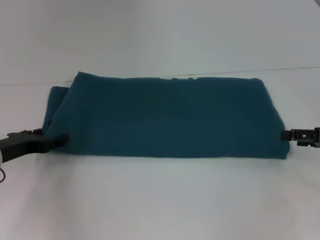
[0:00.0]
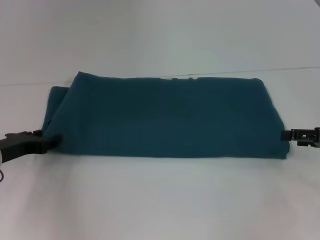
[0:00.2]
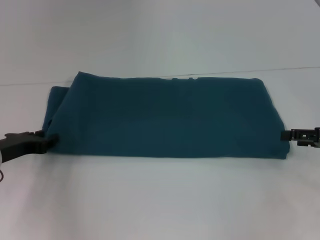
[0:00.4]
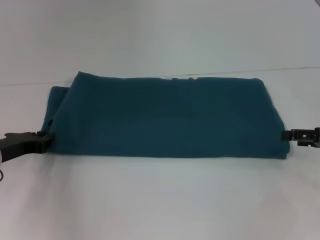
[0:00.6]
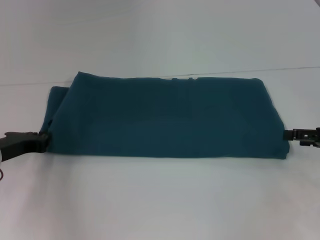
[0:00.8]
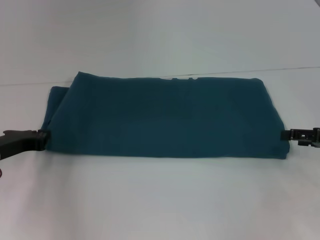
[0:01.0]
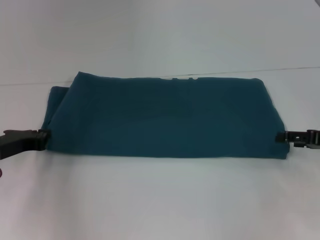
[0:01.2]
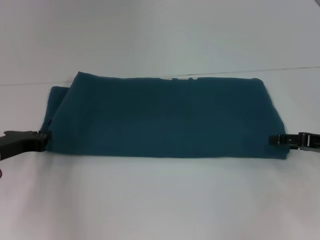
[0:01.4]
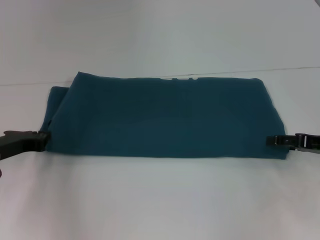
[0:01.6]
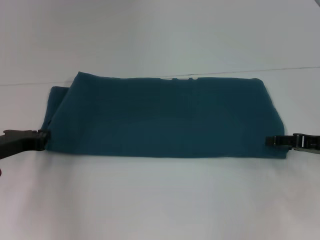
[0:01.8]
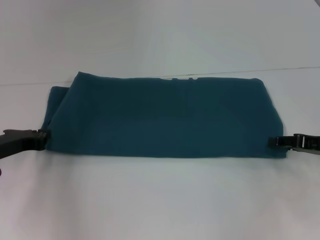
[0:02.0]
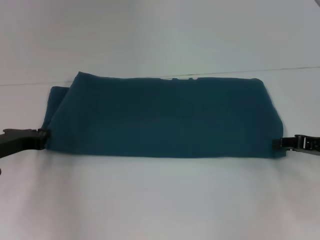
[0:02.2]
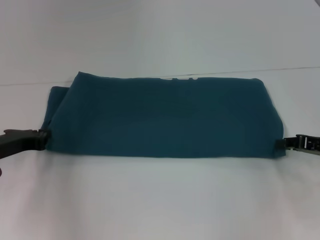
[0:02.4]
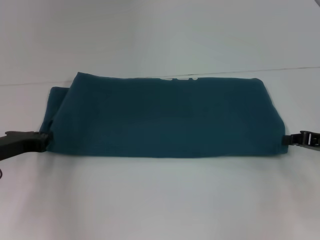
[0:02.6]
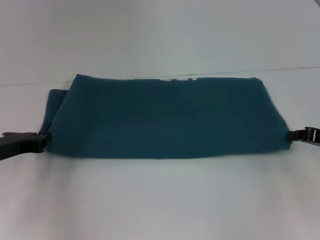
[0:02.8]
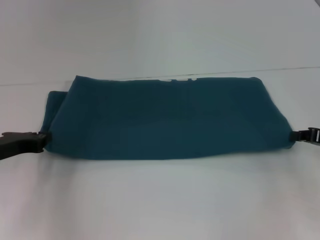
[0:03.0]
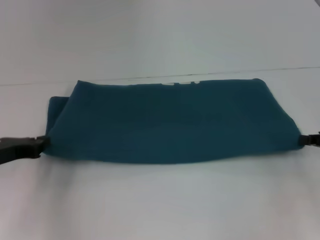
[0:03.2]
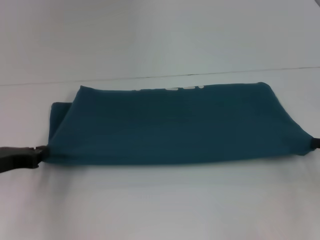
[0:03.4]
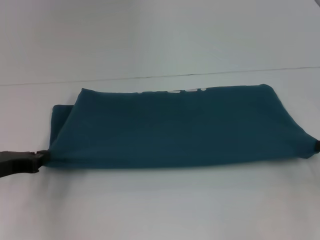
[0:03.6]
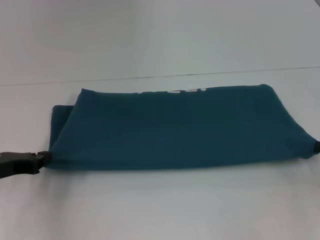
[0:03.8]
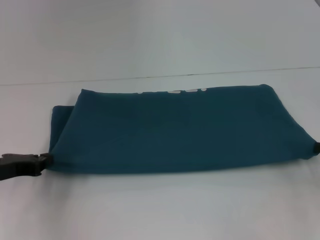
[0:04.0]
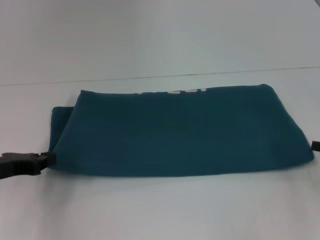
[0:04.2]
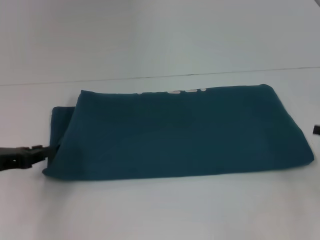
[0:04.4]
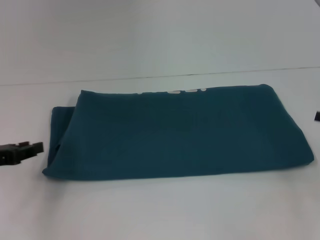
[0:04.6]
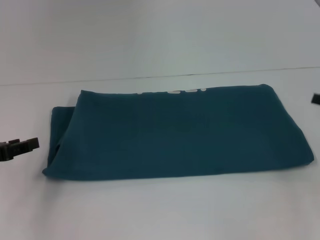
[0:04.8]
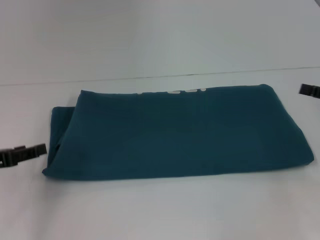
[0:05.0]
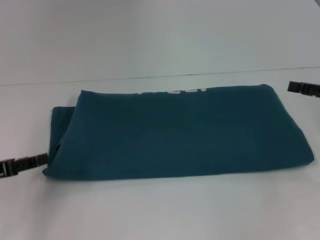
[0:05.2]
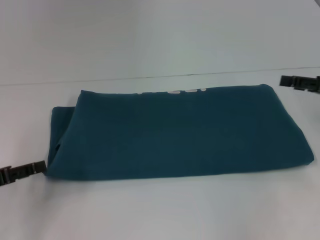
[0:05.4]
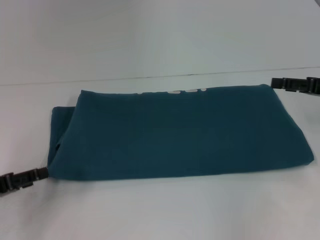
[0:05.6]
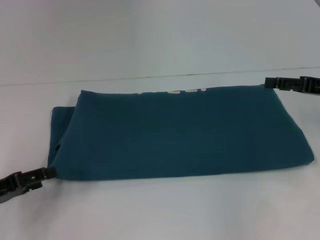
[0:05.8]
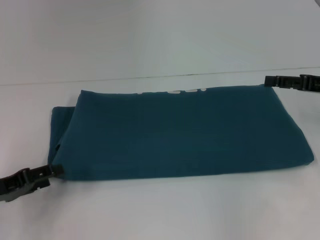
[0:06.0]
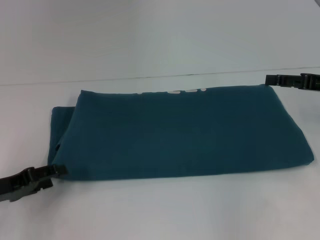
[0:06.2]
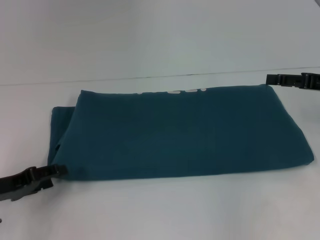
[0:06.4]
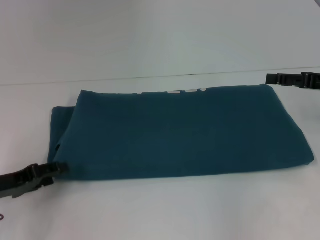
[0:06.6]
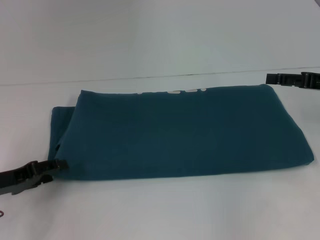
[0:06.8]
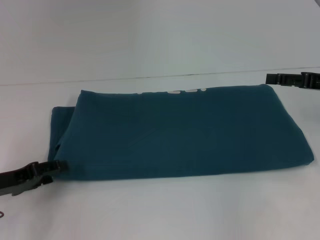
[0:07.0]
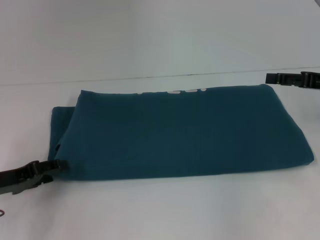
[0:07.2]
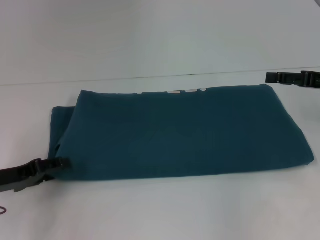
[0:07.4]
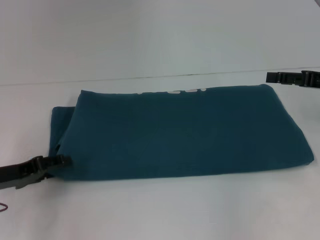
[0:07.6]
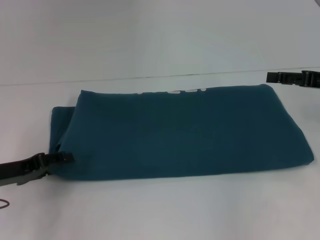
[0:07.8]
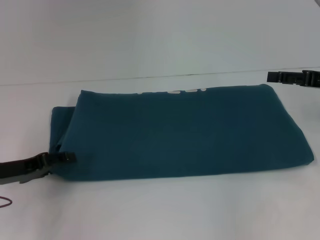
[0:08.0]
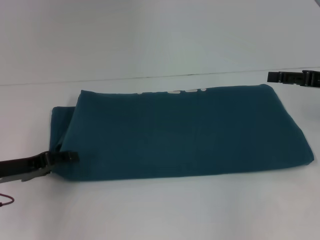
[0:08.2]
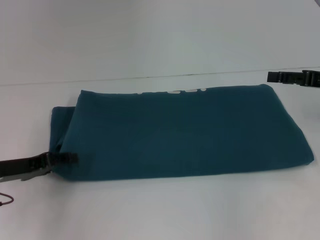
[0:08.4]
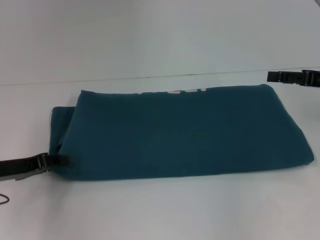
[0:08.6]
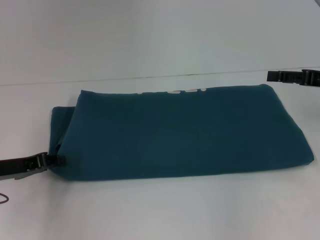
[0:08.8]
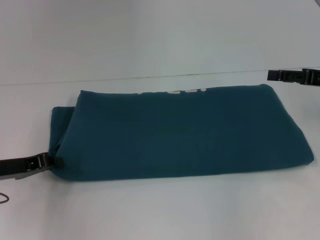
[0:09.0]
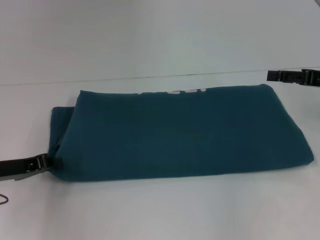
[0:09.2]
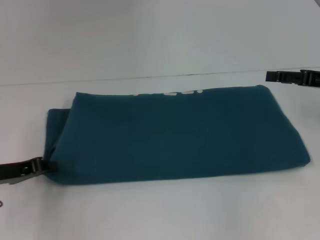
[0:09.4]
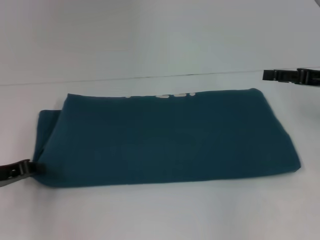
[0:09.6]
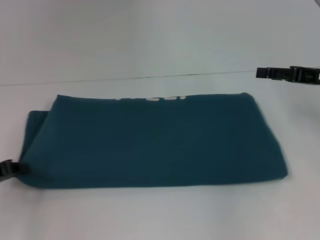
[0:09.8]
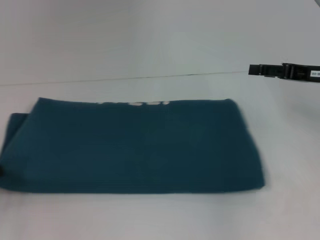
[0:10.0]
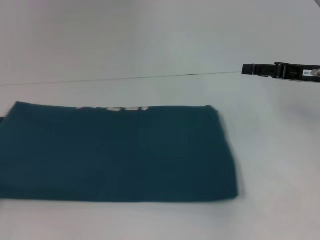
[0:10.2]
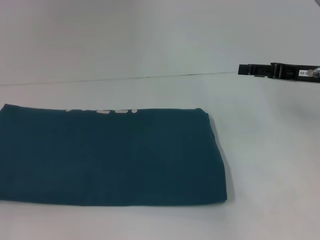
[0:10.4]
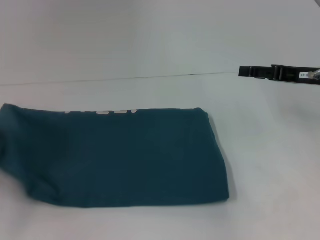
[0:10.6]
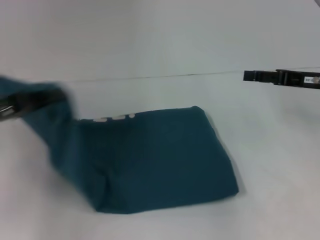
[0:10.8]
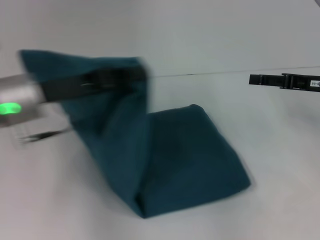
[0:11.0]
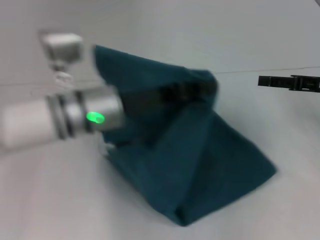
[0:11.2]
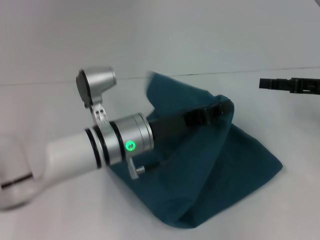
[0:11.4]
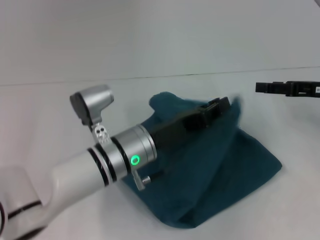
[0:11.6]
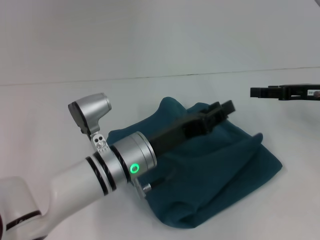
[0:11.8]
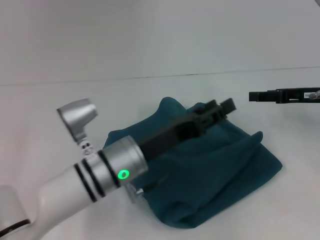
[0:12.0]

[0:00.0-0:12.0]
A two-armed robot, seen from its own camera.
Step, 0:00.0 to 0:11.6: Fold the clothes to the left.
0:00.0 to 0:01.6: The left gripper closes up.
0:01.6 to 0:03.0: The right gripper closes up.
0:03.0 to 0:04.4: The grippers make only small movements.
0:04.4 to 0:06.0: The right gripper moves forward, upward and to the left, some 10 cm, and opens; the left gripper opens.
0:06.0 to 0:07.6: The grippers move only a little.
0:07.6 to 0:09.0: The left gripper closes.
0:09.0 to 0:10.4: The left gripper heads to the left and backward, covering about 15 cm.
0:10.4 to 0:12.0: The left gripper heads to the right, covering about 35 cm, and opens.

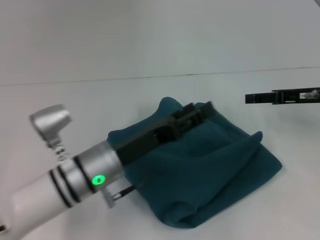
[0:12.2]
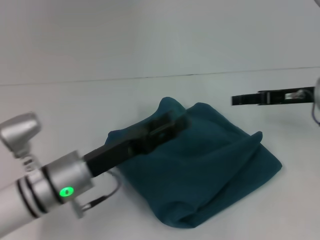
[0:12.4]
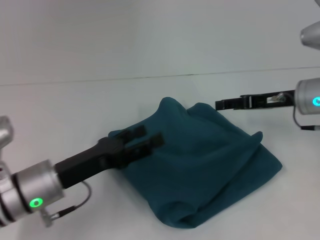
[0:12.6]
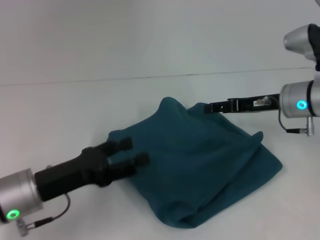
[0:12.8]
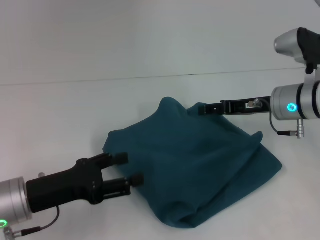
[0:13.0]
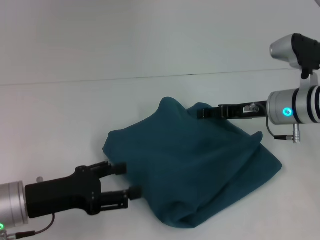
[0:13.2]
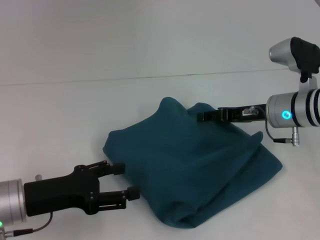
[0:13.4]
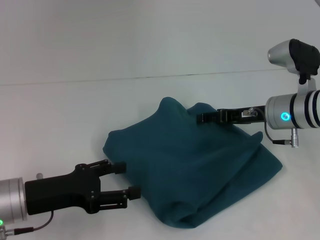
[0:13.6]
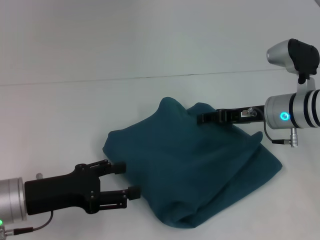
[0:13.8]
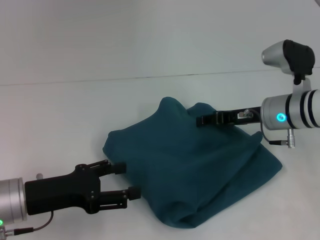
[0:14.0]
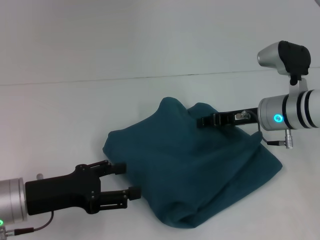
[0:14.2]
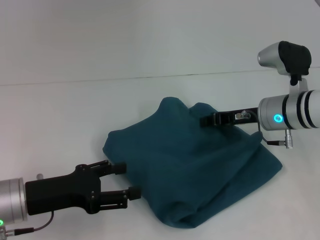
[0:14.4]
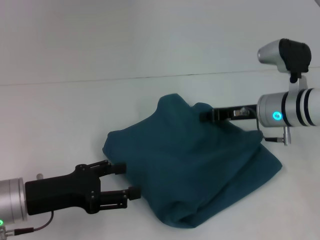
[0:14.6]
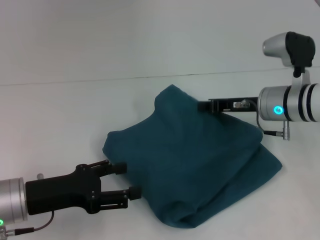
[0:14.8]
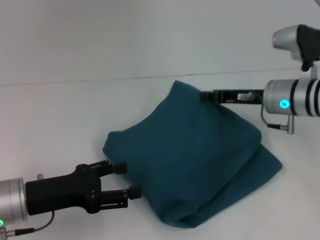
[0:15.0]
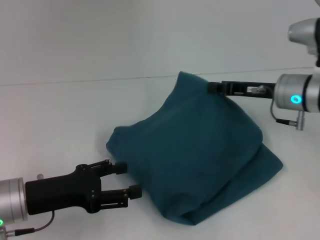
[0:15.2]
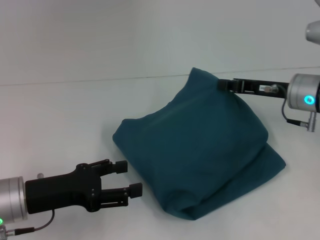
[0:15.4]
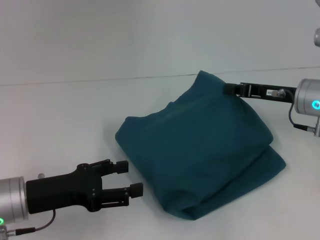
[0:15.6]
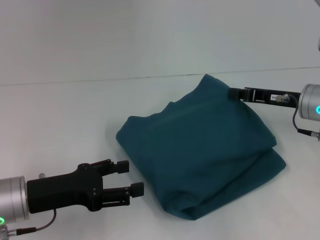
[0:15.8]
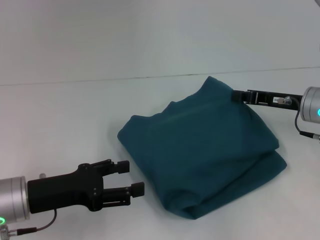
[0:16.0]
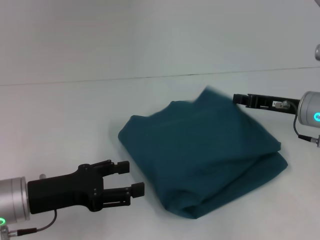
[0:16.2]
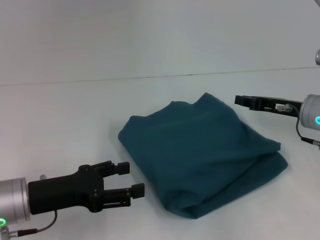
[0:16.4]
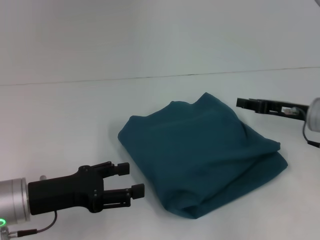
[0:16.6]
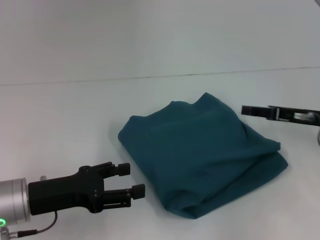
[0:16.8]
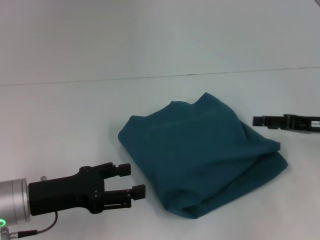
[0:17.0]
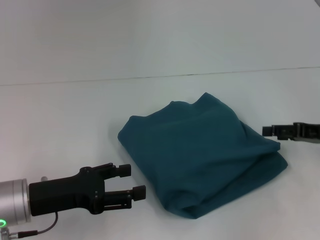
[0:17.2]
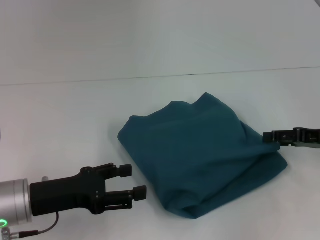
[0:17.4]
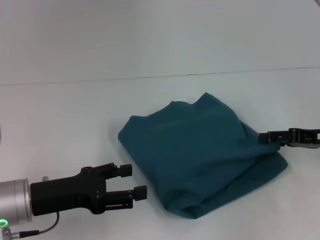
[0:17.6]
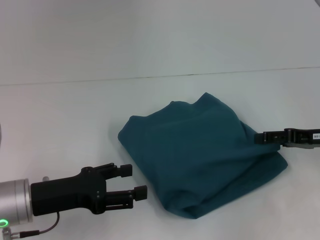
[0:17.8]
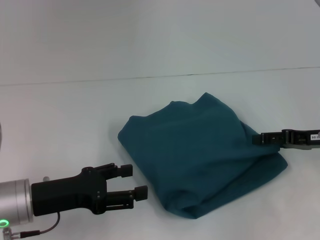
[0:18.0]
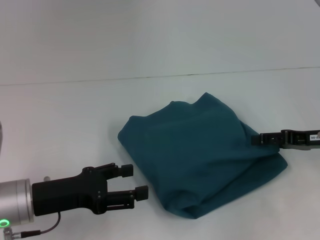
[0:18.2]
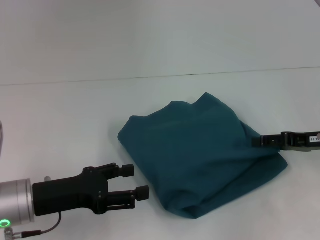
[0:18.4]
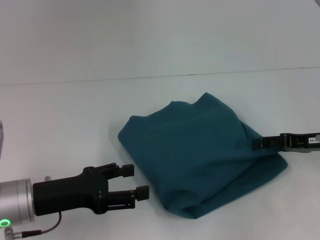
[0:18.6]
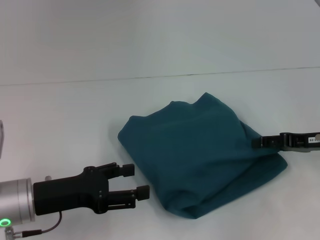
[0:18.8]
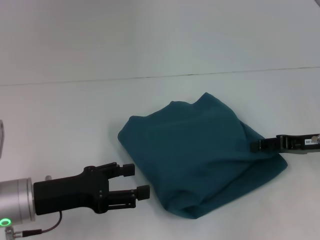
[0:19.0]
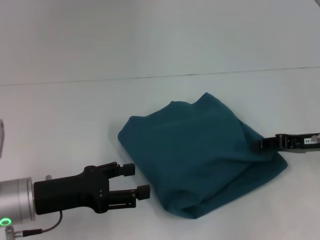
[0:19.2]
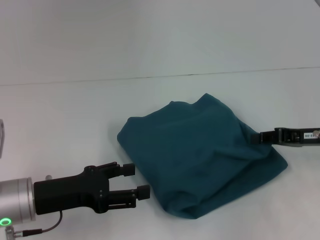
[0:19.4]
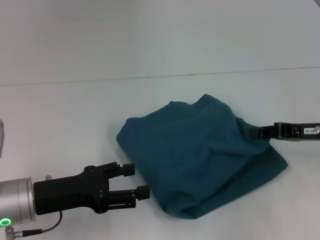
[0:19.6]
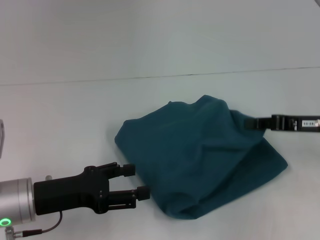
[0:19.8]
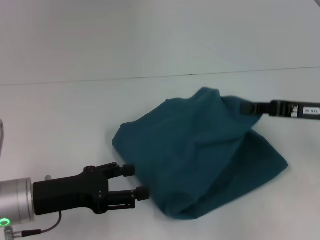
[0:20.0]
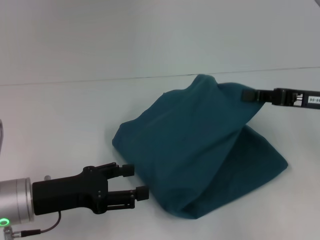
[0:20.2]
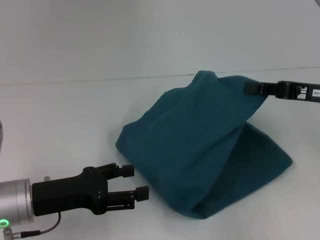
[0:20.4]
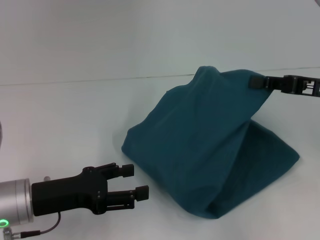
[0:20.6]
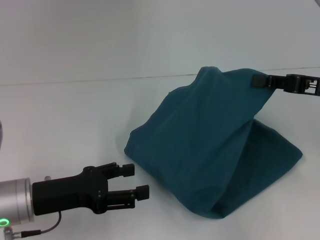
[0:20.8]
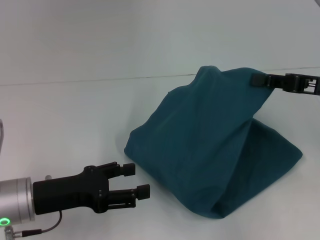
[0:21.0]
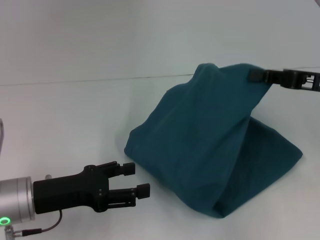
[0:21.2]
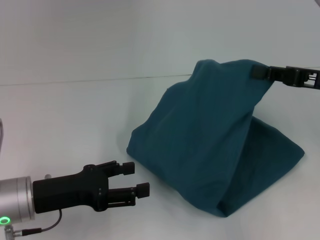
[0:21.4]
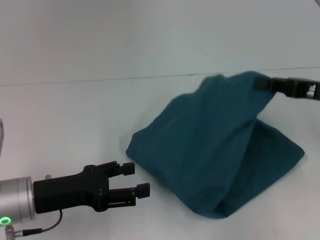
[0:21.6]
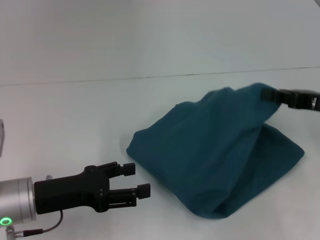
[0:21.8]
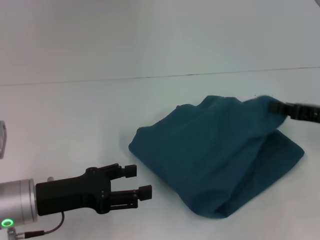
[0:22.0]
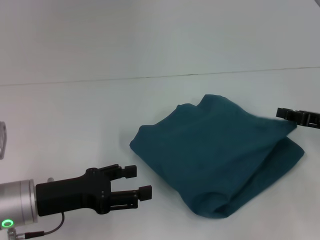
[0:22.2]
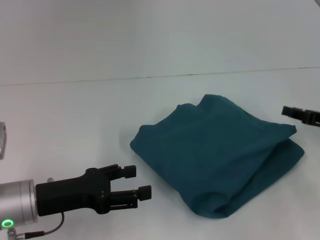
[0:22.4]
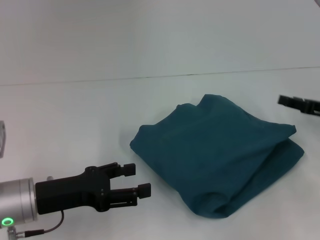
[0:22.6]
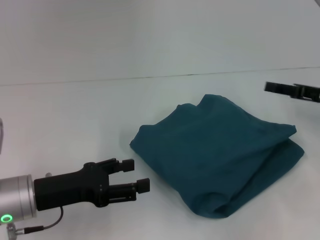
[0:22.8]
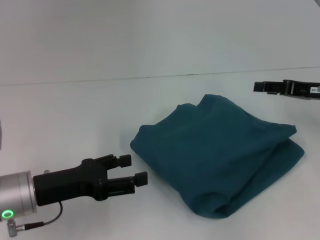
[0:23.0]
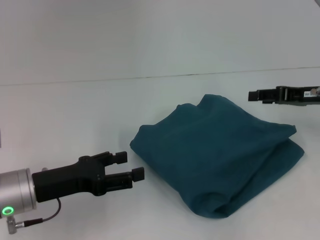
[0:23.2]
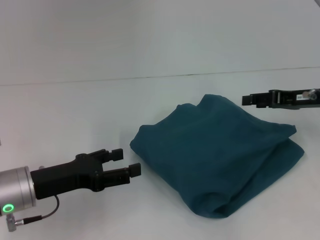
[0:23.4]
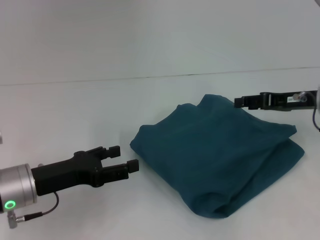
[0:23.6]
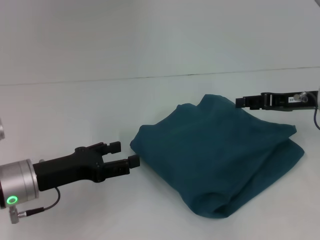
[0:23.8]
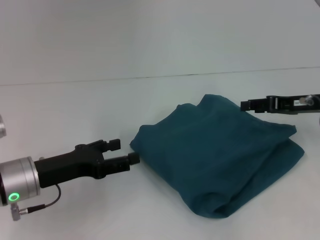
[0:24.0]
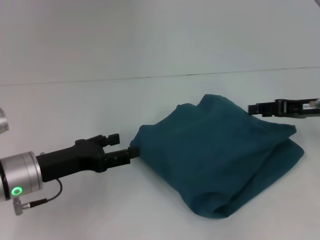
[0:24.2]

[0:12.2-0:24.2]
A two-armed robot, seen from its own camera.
0:12.2 to 0:13.8: The grippers both shift to the left by some 10 cm.
0:13.8 to 0:15.2: The right gripper closes up.
0:15.2 to 0:16.6: The right gripper shifts roughly 5 cm to the right, and opens its fingers.
0:16.6 to 0:18.2: The right gripper shifts by roughly 5 cm, and opens.
0:18.2 to 0:19.8: The right gripper closes up.
0:19.8 to 0:21.2: The right gripper heads upward, covering roughly 5 cm.
0:21.2 to 0:22.6: The right gripper is displaced downward by about 10 cm, and opens up.
0:22.6 to 0:24.2: The right gripper shifts by roughly 5 cm.
